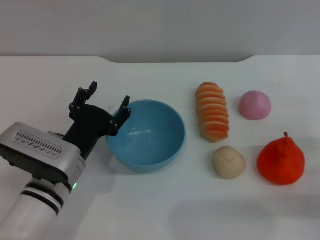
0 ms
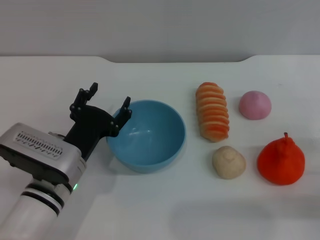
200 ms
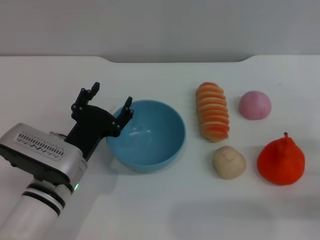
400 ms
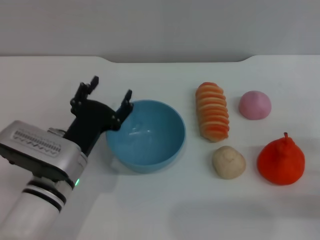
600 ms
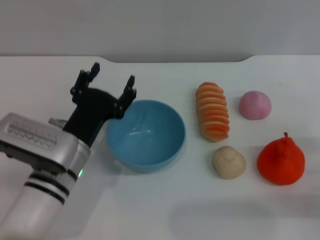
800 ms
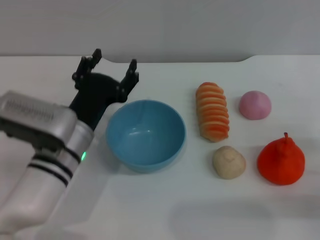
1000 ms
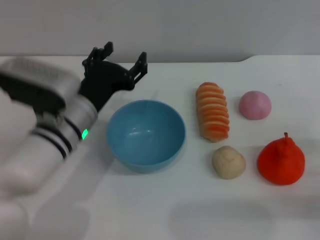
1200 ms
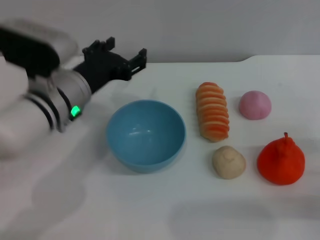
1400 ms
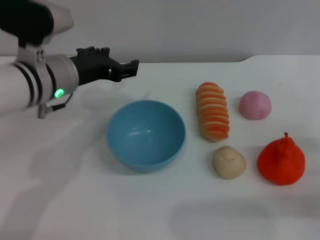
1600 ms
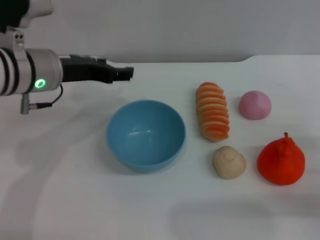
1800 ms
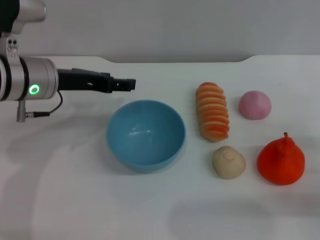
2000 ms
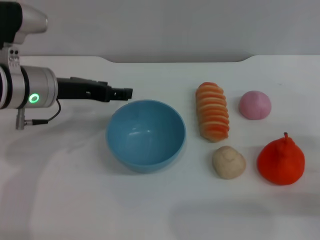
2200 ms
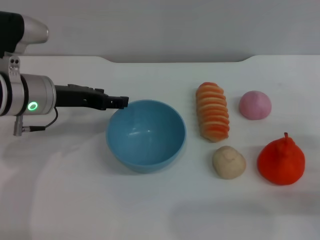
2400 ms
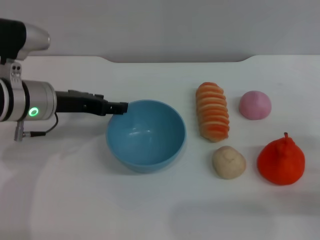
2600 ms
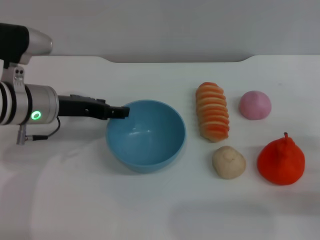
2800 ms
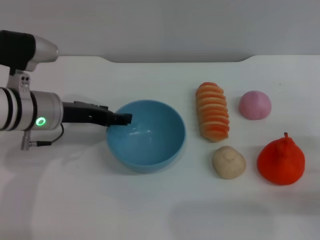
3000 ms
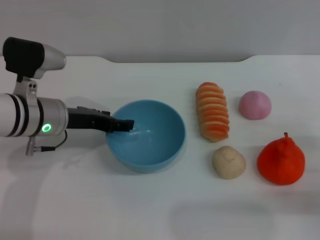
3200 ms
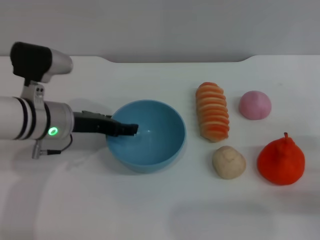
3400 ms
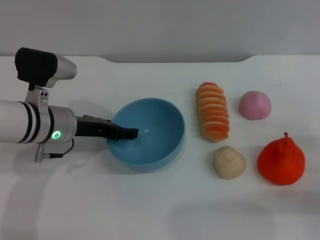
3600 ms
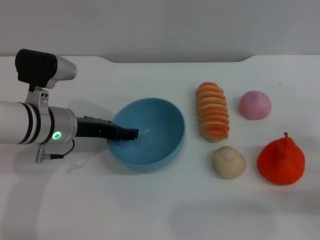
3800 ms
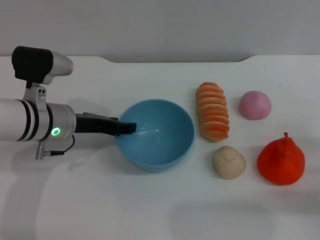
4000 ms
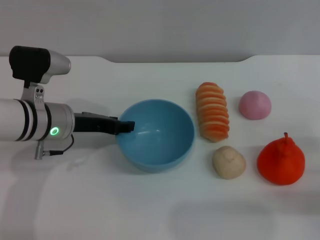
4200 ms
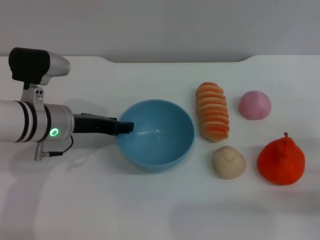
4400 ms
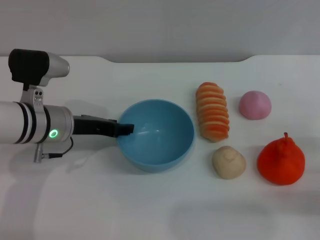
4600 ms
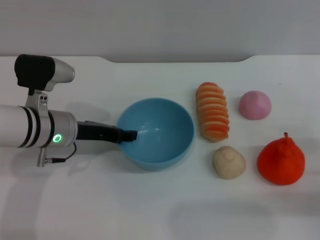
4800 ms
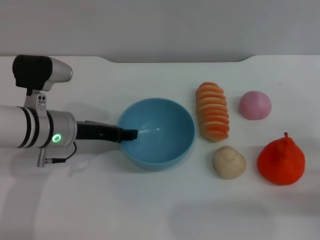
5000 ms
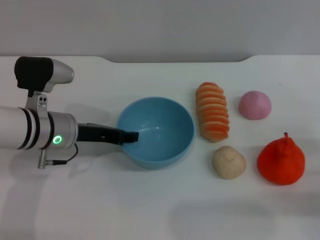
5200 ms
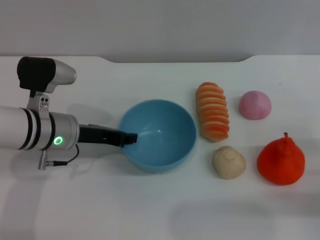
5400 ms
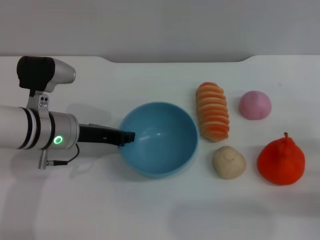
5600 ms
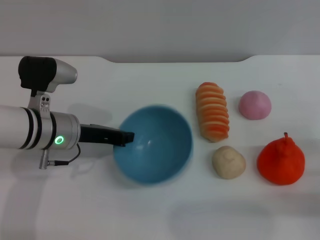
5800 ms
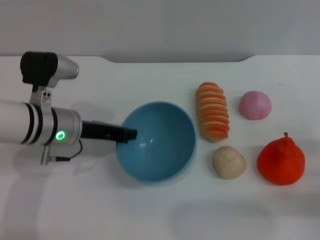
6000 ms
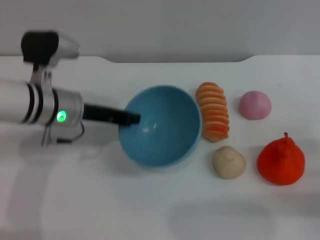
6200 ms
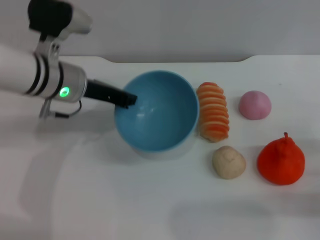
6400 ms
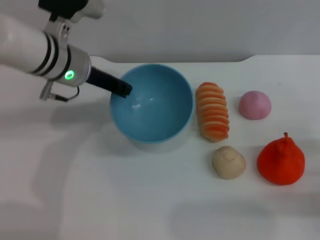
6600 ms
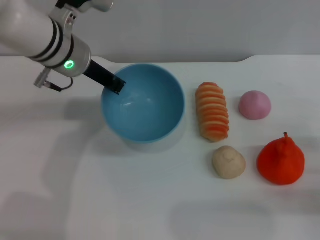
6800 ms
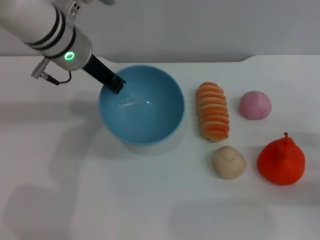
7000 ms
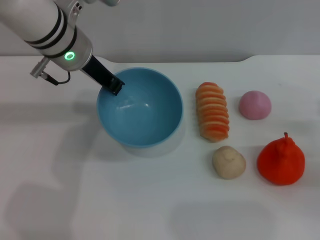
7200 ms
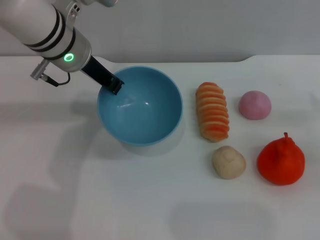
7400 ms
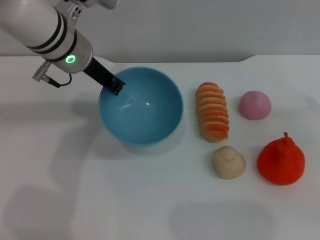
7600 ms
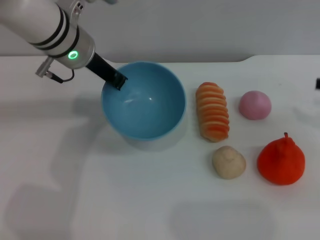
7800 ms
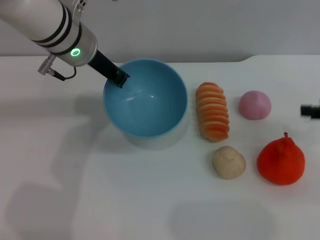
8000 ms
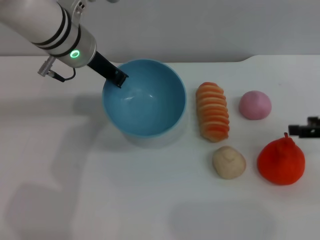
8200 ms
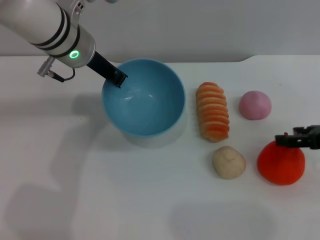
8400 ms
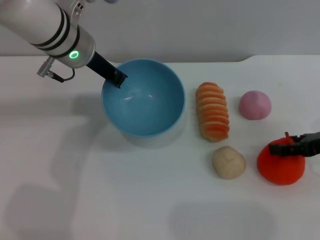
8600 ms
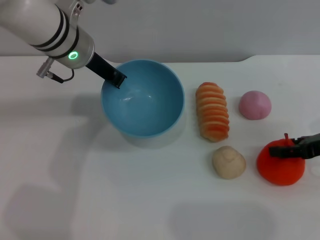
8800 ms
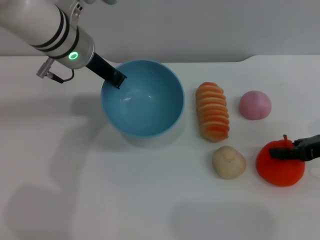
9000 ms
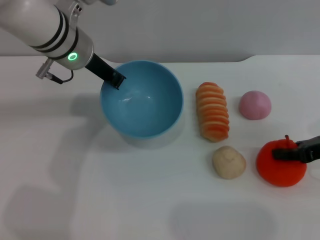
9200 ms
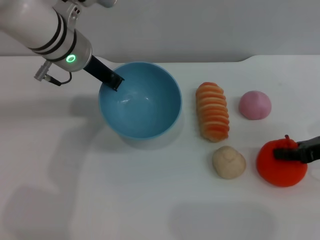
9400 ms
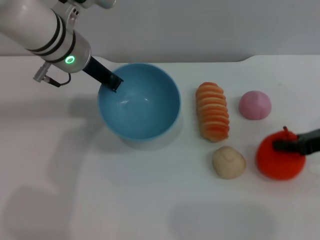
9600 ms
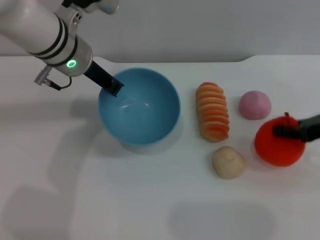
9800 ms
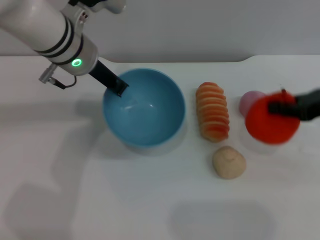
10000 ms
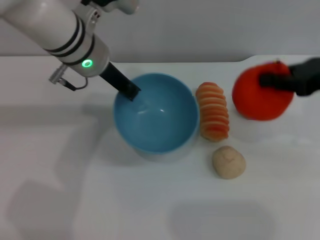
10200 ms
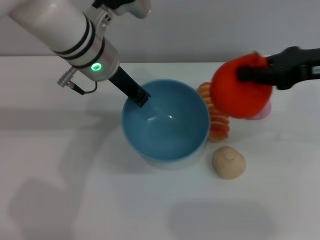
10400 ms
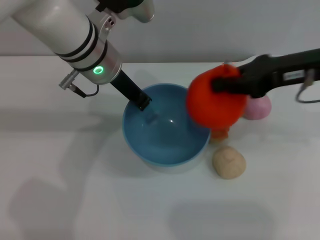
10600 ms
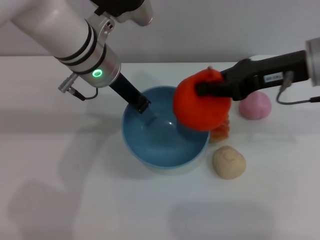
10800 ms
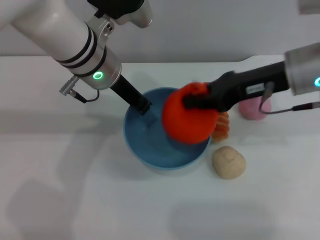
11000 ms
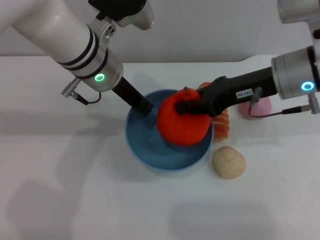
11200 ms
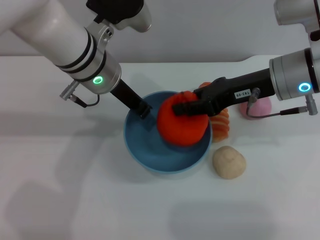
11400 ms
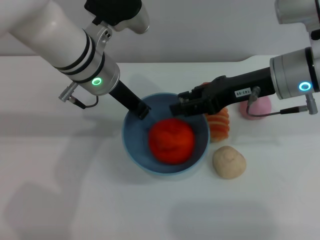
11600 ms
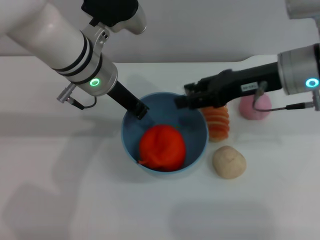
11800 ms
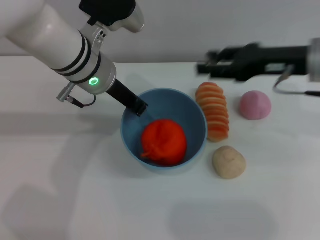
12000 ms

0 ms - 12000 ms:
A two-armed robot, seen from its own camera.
Task of the whole recording: put the orange into the blue bowl and pour it out repeatedly.
Step, 0 ms - 7800 ms: Pick up the bowl with the left gripper.
Step, 8000 ms - 9600 ms: Pick up the orange with the right gripper.
Step, 10000 ms - 11800 ms: Place the orange into the bowl.
0 ms - 1600 ms: The left gripper travels upward and forward by about 15 cm.
1600 ms - 3000 ms: The left gripper changes place by approximately 5 cm.
3000 ms - 4400 ms: The grippers make only small movements.
4400 ms - 6000 ms: The left gripper closes its fingers.
6000 ms - 7600 ms: Both grippers move upward and forward, some 15 cm.
7600 ms - 9000 ms: The right gripper moves to the left, about 5 cm.
9000 ms - 10400 ms: The right gripper travels upward and to the left by roughly 15 cm, and closes.
10400 ms - 12000 ms: The right gripper opens its fingers.

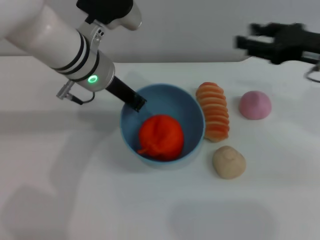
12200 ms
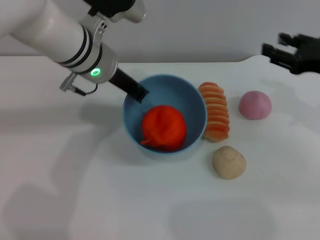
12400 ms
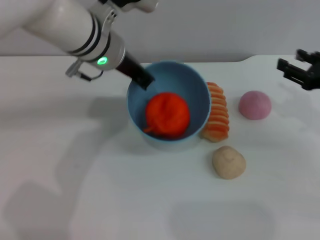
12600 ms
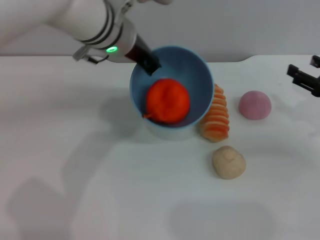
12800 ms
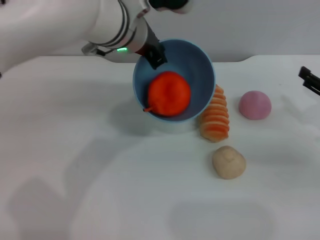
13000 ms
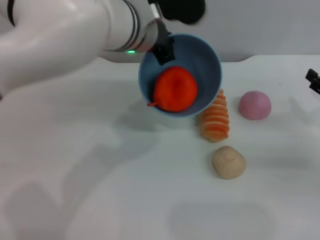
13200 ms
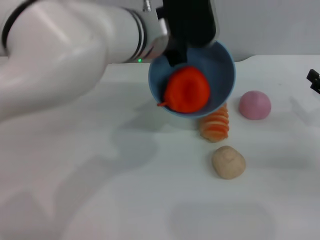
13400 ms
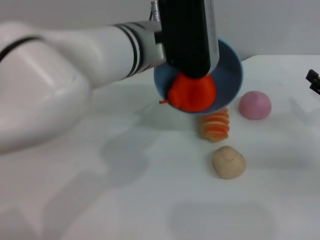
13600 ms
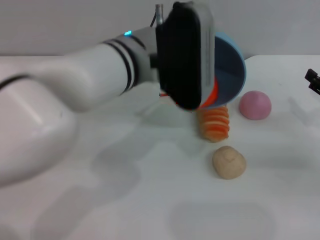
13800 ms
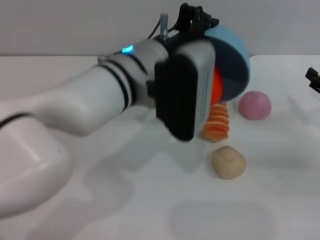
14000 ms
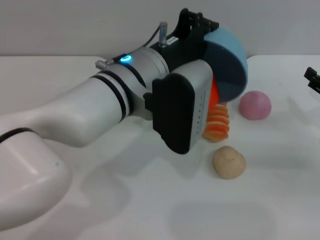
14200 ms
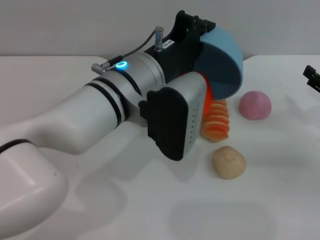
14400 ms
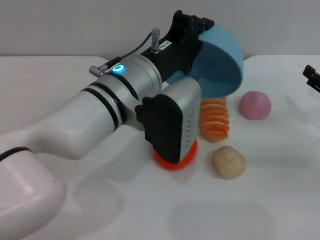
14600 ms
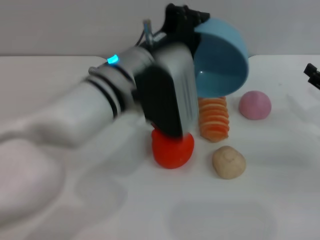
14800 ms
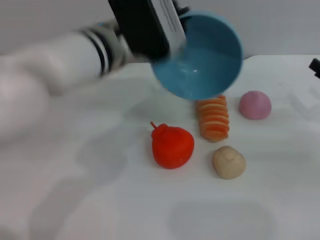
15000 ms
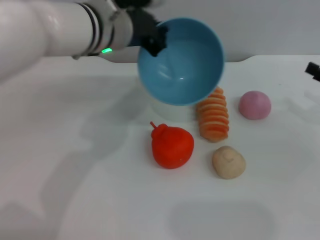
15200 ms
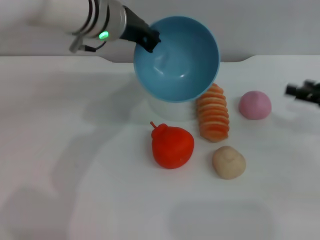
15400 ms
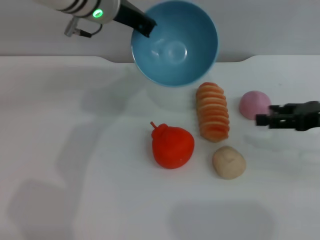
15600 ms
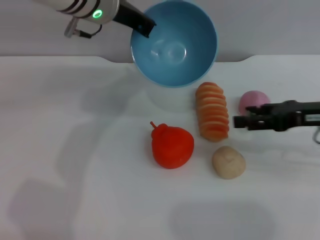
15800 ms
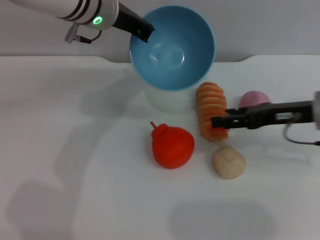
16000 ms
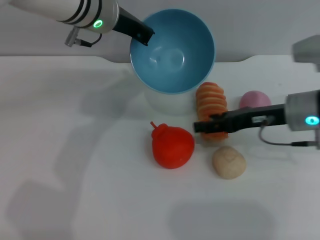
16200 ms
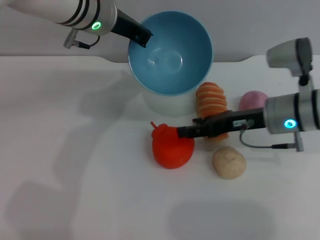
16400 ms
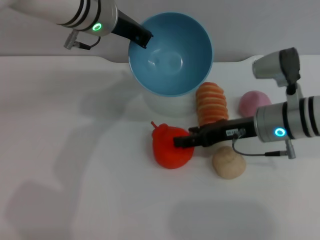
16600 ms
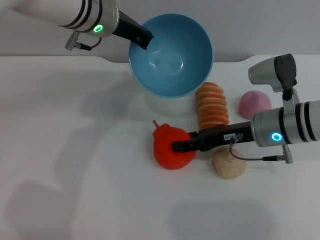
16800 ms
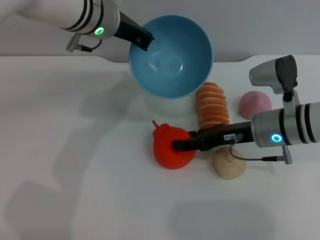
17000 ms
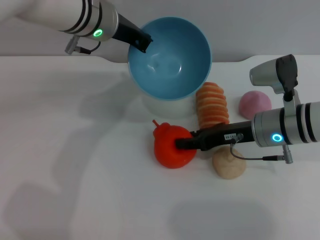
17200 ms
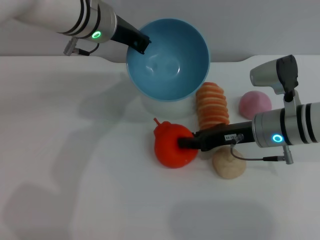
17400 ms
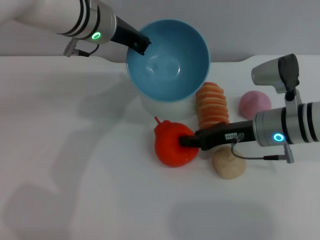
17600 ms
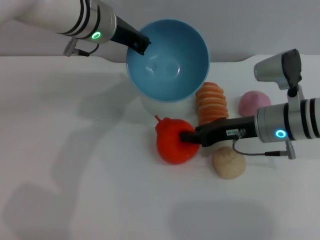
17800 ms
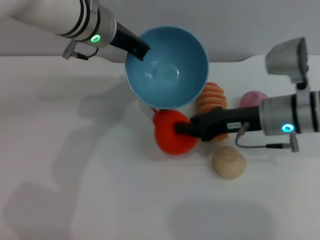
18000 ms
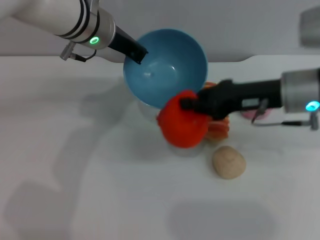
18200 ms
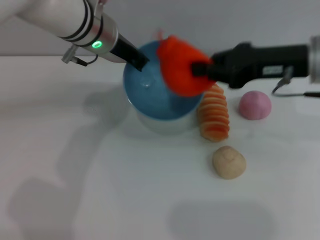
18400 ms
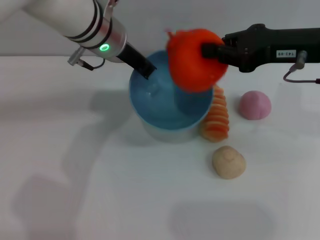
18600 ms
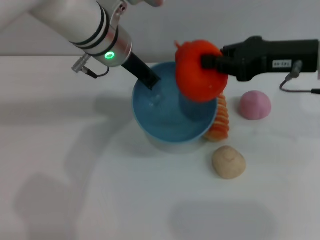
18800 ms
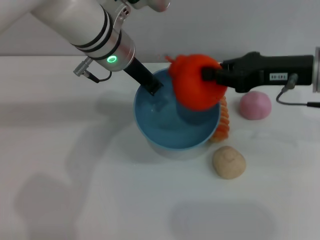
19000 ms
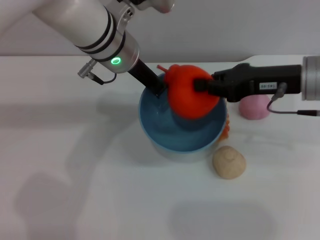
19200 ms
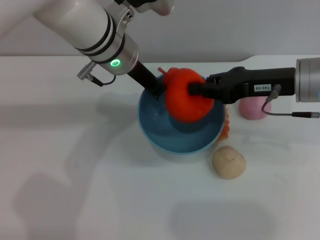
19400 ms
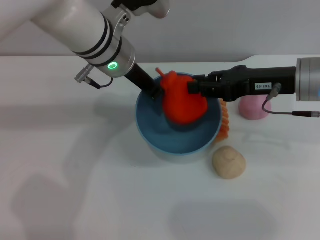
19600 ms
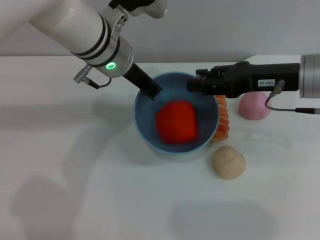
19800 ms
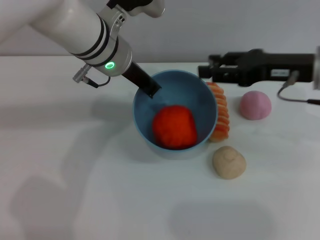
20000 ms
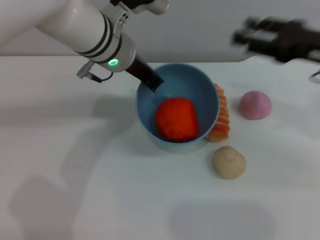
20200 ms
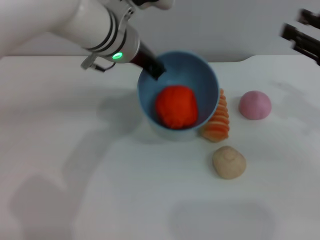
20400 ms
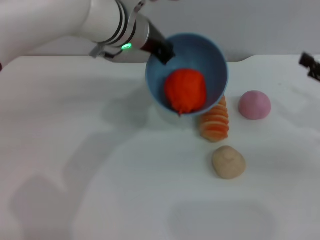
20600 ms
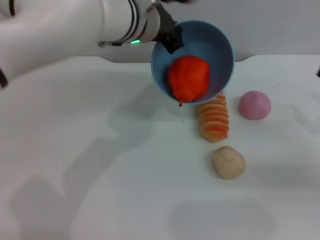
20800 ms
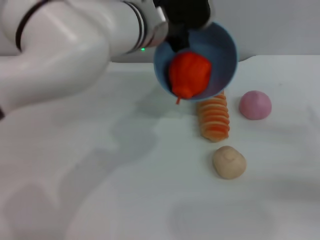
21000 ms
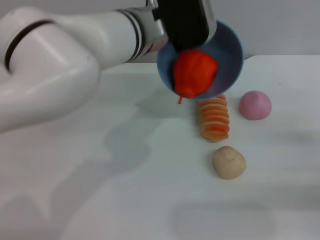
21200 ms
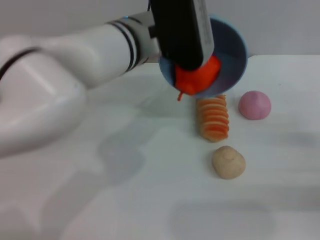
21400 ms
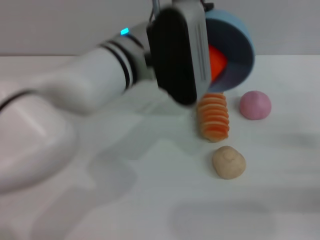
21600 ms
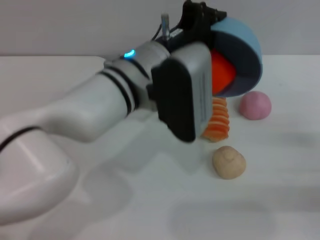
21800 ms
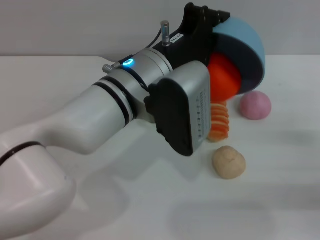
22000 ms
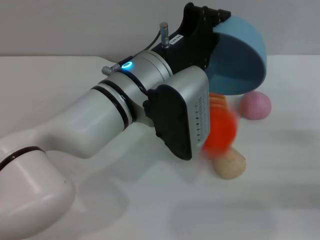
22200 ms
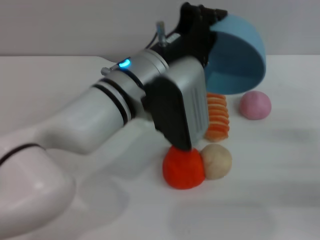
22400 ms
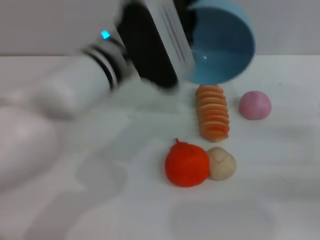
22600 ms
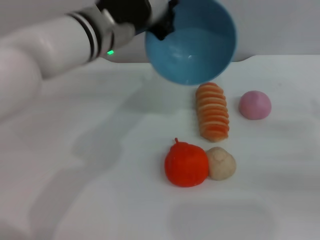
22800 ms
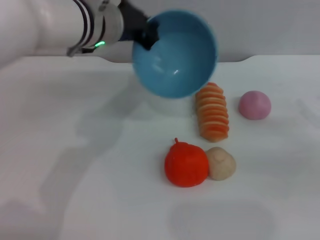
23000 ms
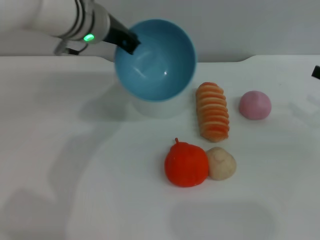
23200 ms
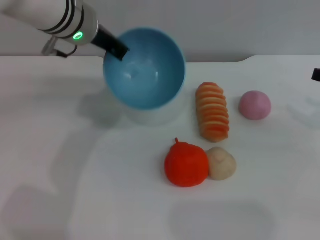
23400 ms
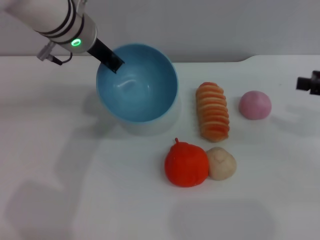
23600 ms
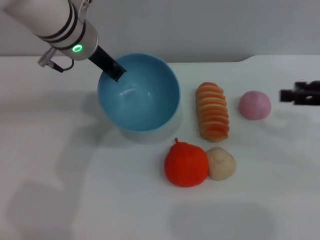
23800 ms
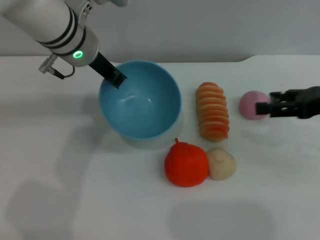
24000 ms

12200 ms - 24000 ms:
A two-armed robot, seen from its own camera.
Task of the whole recording: put the orange into the blue bowl and pour it out repeatedly.
Step, 12200 ms - 14800 ms: Pour the orange out of the bowl.
Step, 15000 ms - 18200 ms: Pick up the orange with the right gripper.
Step, 18400 ms - 20800 ms: Place the orange into the bowl.
Step, 21000 ms - 23400 ms: Pour the orange out of the bowl.
12200 ms - 13600 ms: The right gripper goes approximately 15 cm downward, to the right and backward, while the left gripper goes some 5 cm to the right.
13600 ms - 15200 ms: The left gripper shifts some 5 cm forward and to the left.
15200 ms - 16600 ms: The right gripper shifts about 20 cm to the left.
16600 ms - 18200 ms: The right gripper travels upward by roughly 5 cm, and closes up.
19600 ms - 21000 ms: The right gripper is displaced to the right, backward and downward by about 20 cm, and opens.
21000 ms - 22600 ms: The left gripper shifts approximately 5 cm backward.
22600 ms - 24000 ms: The right gripper heads upward, forward and to the left, covering about 15 cm; the left gripper shifts approximately 10 cm forward and to the left.
